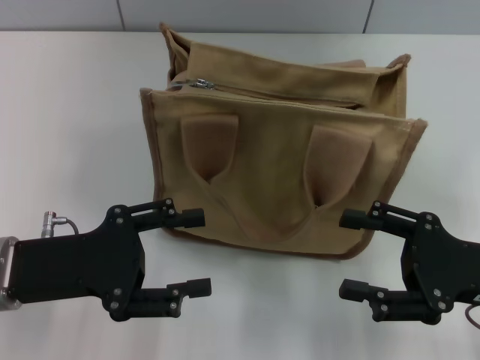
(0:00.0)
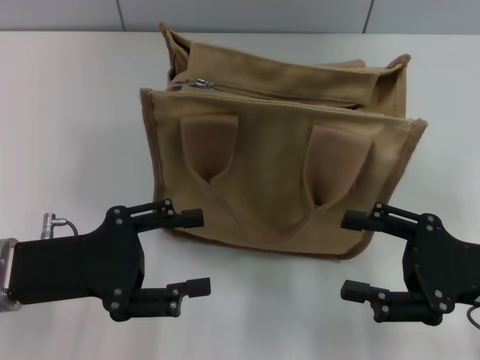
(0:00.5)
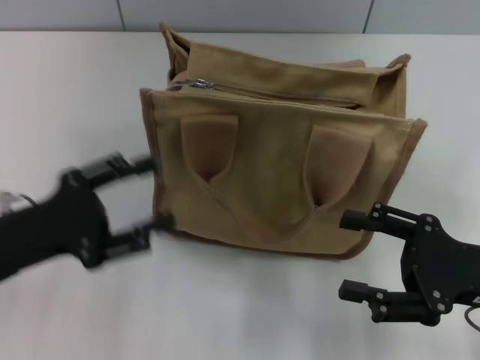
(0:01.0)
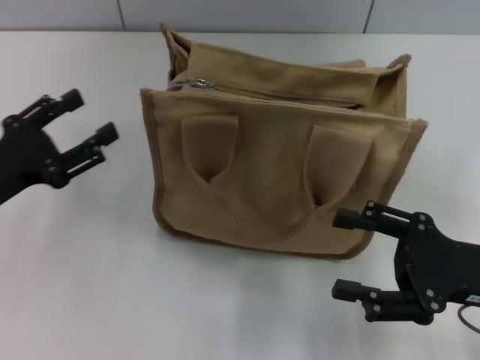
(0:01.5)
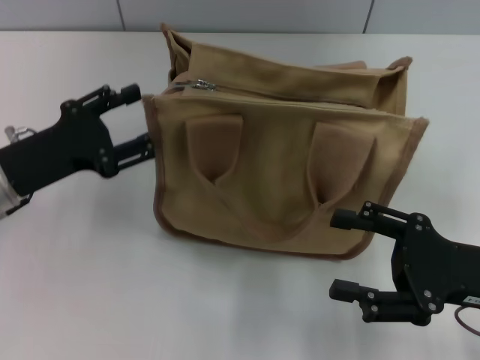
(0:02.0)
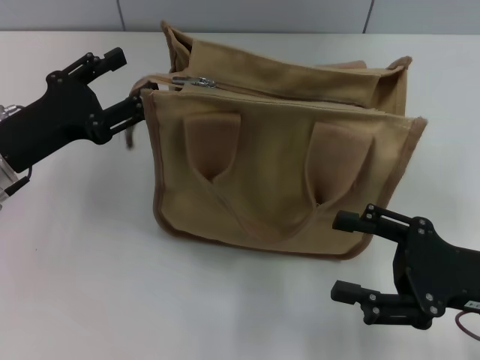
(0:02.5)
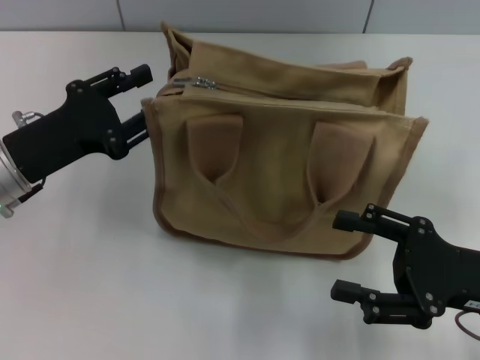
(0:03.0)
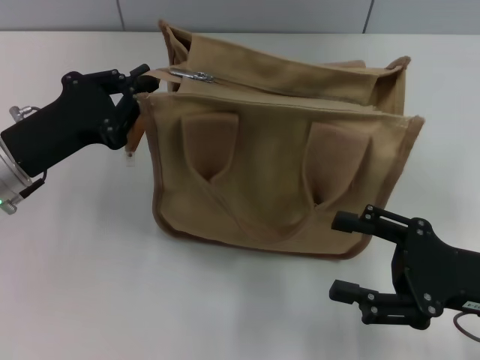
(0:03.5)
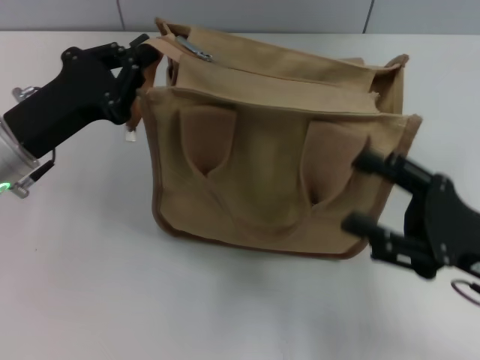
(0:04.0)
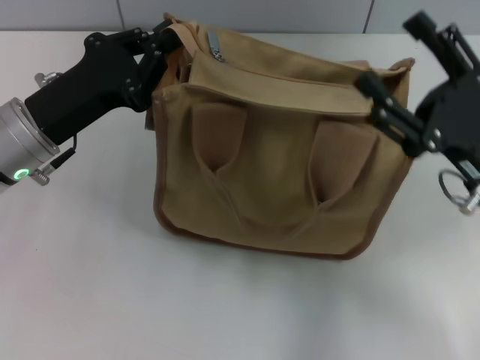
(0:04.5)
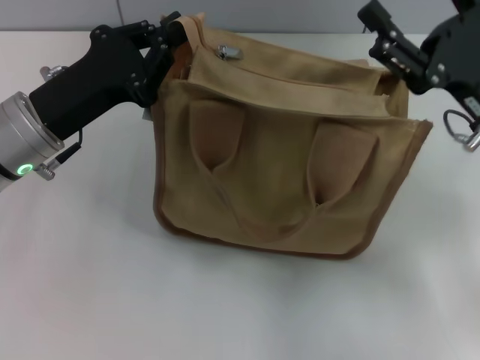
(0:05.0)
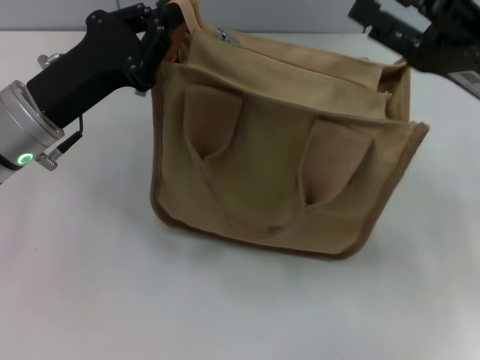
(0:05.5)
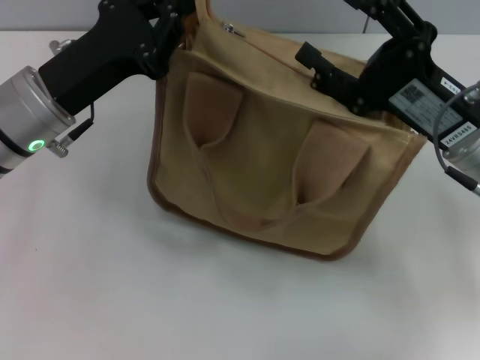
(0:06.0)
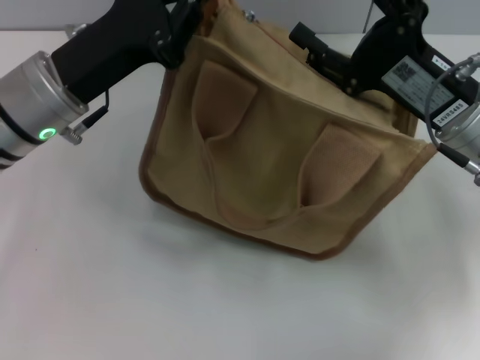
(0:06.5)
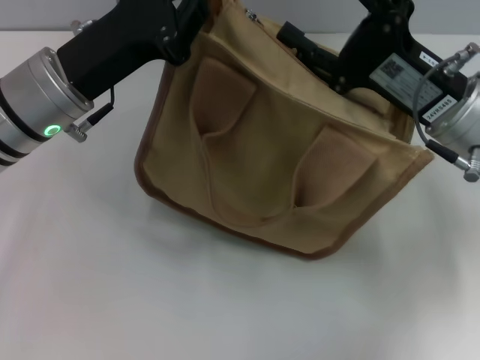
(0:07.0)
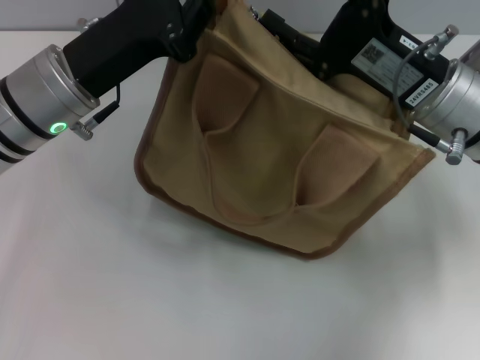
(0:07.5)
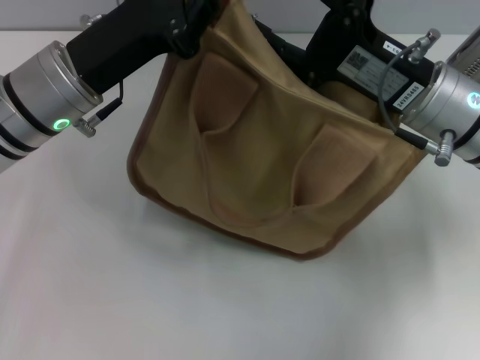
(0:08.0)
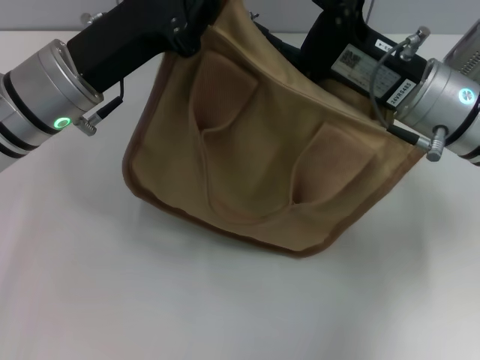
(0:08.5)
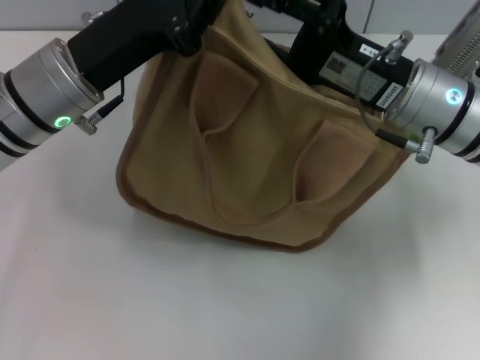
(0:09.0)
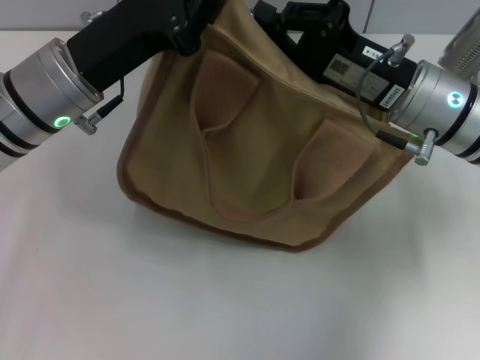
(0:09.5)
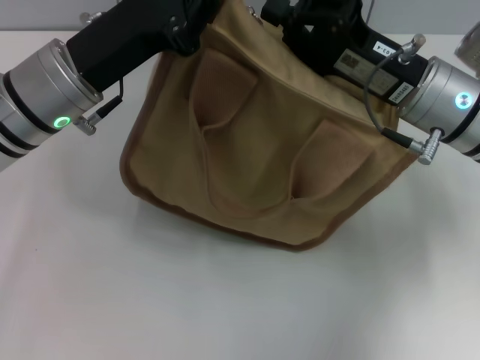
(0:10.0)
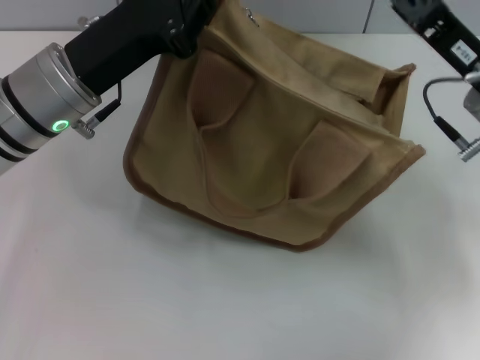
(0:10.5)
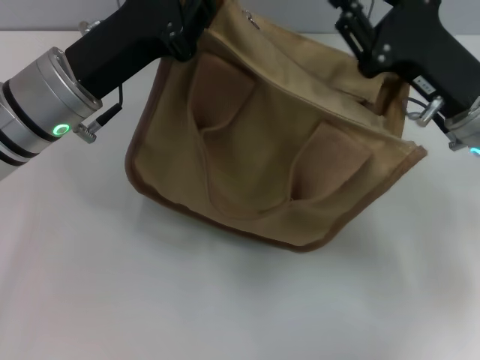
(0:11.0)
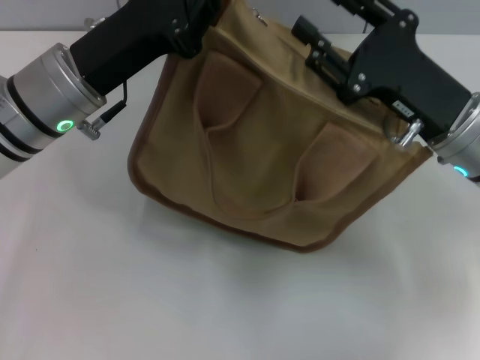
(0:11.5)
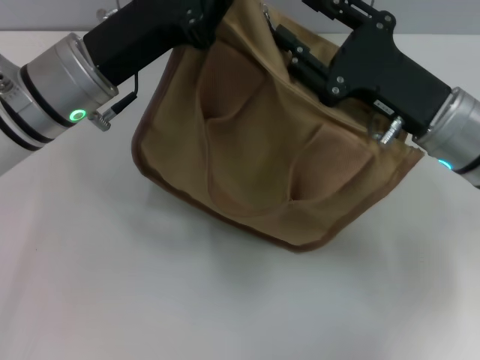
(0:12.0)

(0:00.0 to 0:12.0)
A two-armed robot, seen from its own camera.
0:00.0 - 0:02.0: The left gripper is displaced forward by about 5 cm.
0:02.0 - 0:04.0: The left gripper closes up.
0:04.0 - 0:06.0: The right gripper travels forward by about 10 cm.
0:08.0 - 0:10.0: The right gripper closes its fingers.
0:10.0 - 0:12.0: The right gripper opens up.

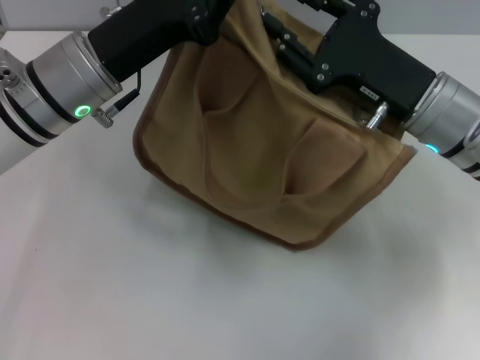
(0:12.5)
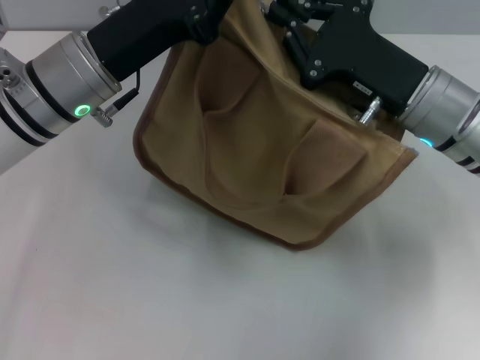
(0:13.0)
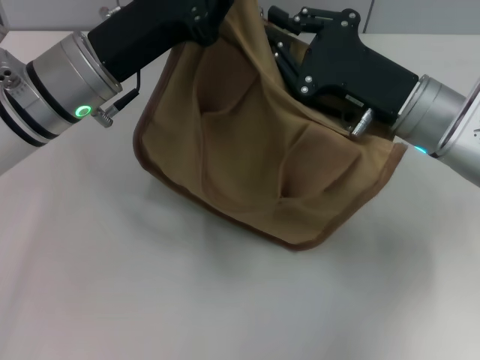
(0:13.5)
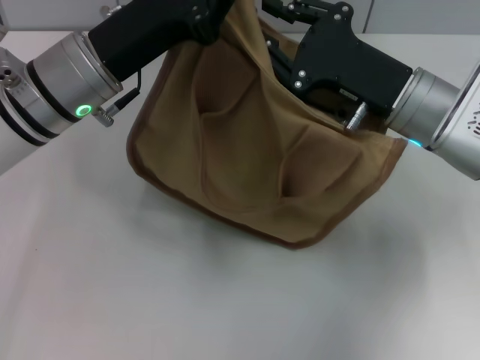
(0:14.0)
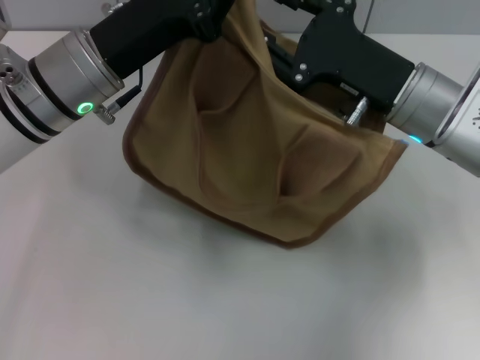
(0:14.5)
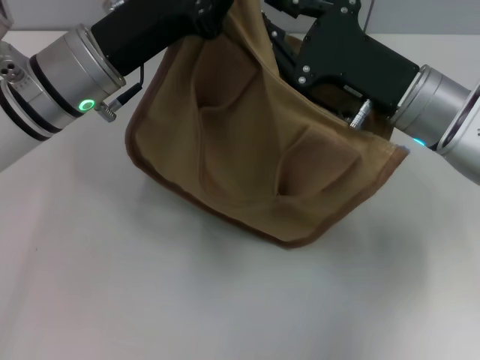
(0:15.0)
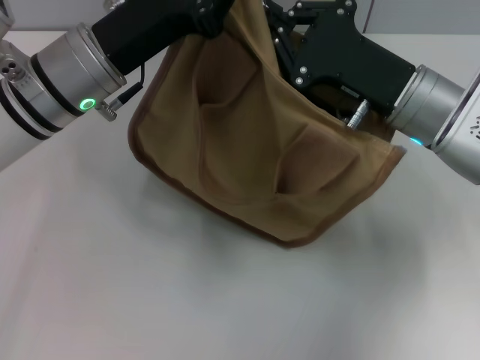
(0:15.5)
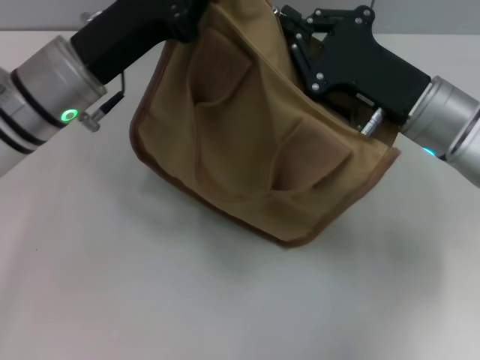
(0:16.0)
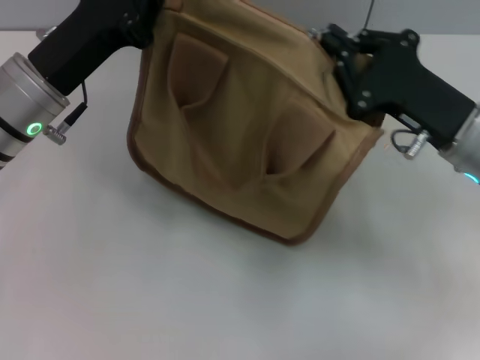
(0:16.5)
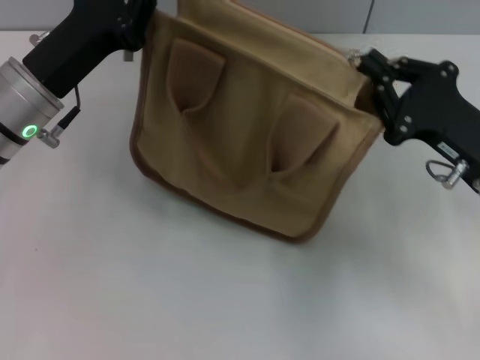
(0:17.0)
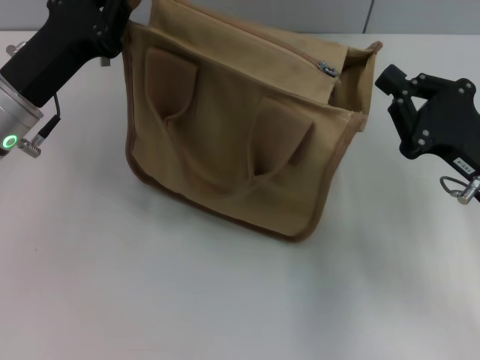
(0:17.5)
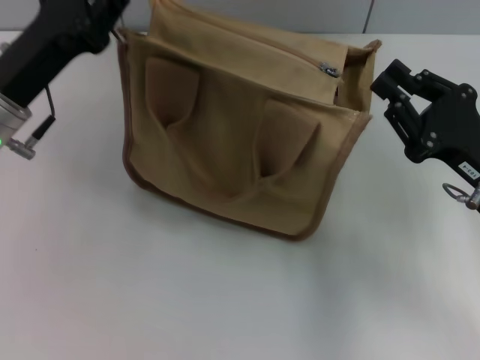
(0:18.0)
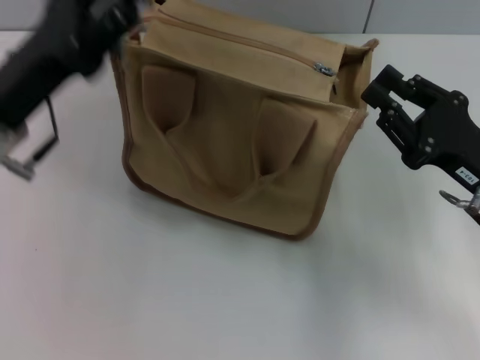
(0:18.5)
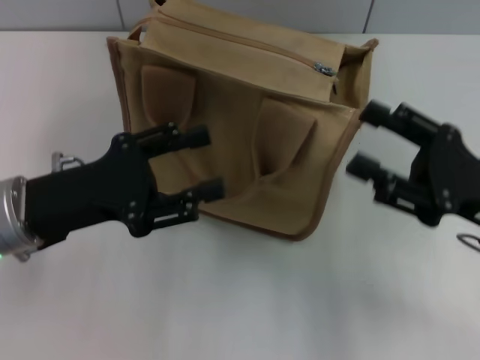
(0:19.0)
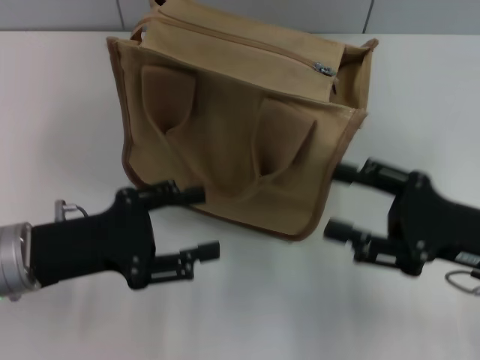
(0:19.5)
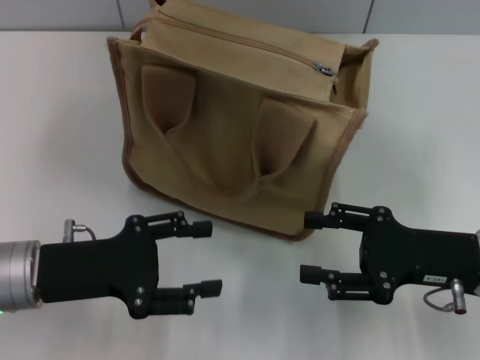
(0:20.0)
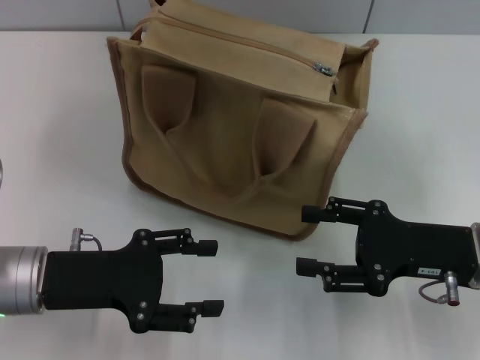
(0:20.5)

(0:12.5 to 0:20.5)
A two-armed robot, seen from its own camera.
Step, 0:12.5 - 0:17.5: Pull up the zipper with your right hand.
Step, 0:18.0 - 0:18.5: Grab the zipper with your left hand.
0:12.5 - 0:14.5: The right gripper closes, then reopens.
0:14.5 - 0:16.5: The right gripper heads to the right, covering about 5 cm, and closes up. The left gripper shifts by roughly 5 cm.
0:16.5 - 0:18.5: The left gripper opens; the right gripper is displaced backward by roughly 5 cm.
0:18.5 - 0:20.5: The right gripper opens. Meanwhile the left gripper is displaced downward and backward by roughly 10 cm.

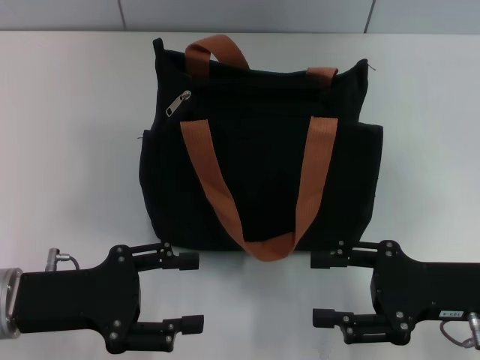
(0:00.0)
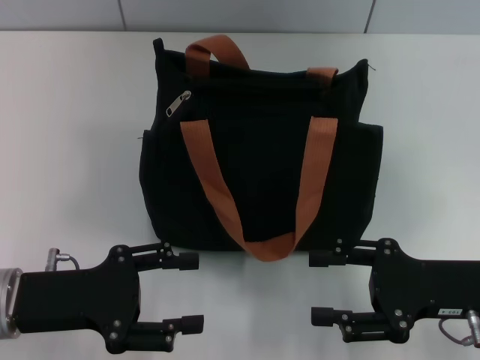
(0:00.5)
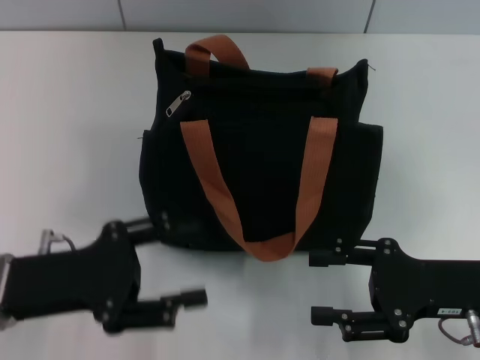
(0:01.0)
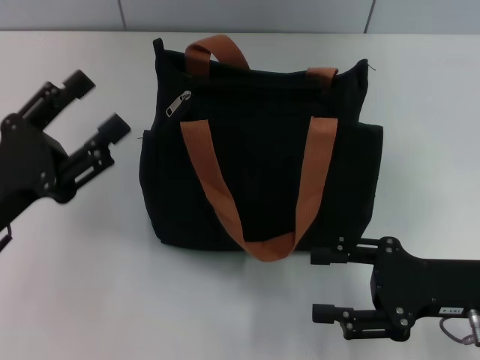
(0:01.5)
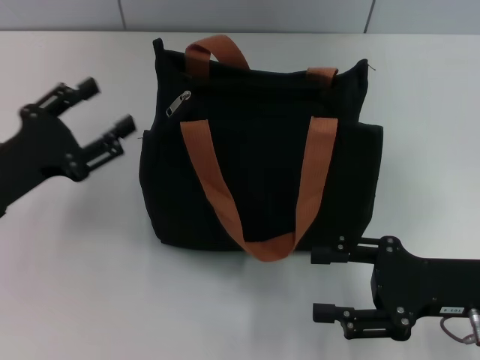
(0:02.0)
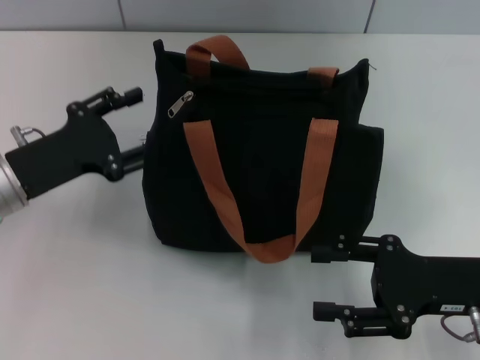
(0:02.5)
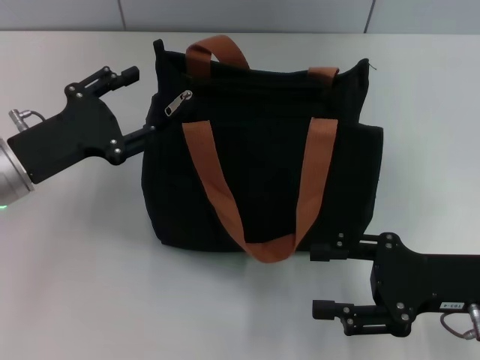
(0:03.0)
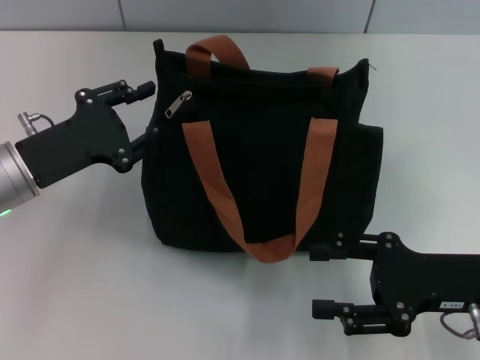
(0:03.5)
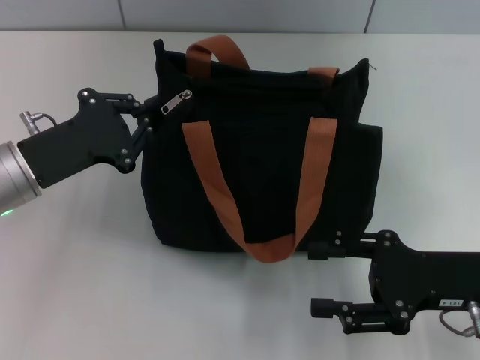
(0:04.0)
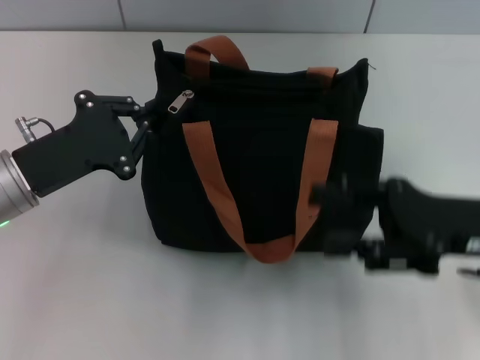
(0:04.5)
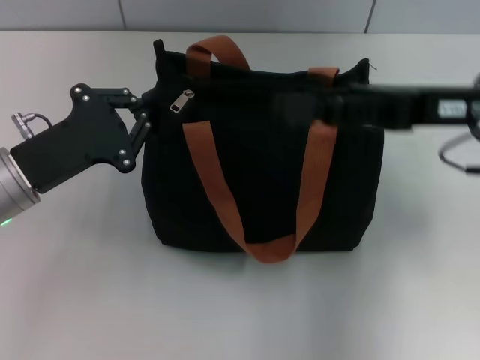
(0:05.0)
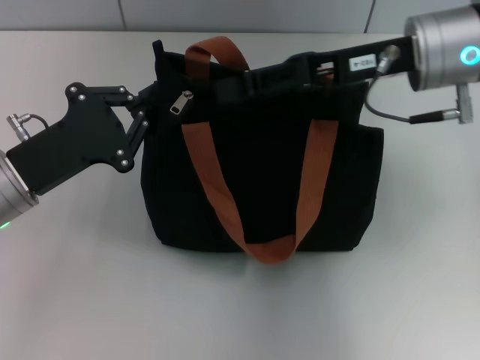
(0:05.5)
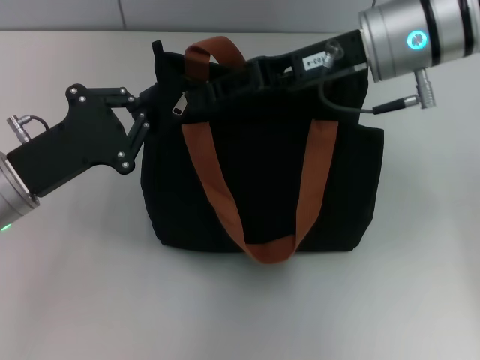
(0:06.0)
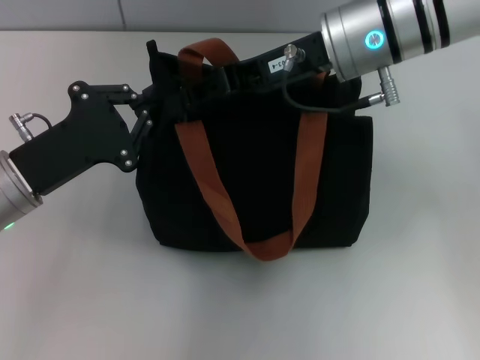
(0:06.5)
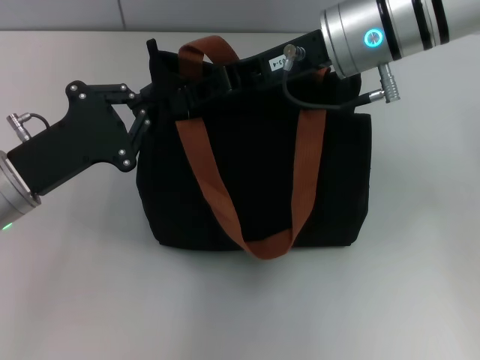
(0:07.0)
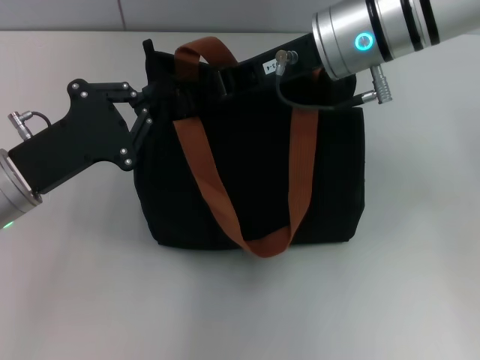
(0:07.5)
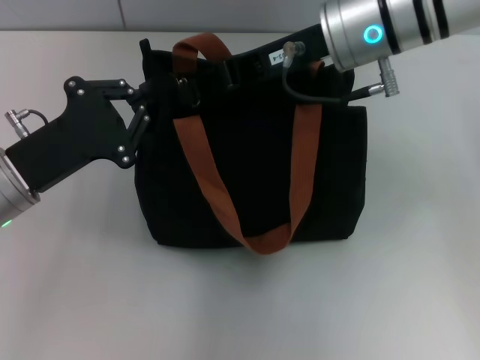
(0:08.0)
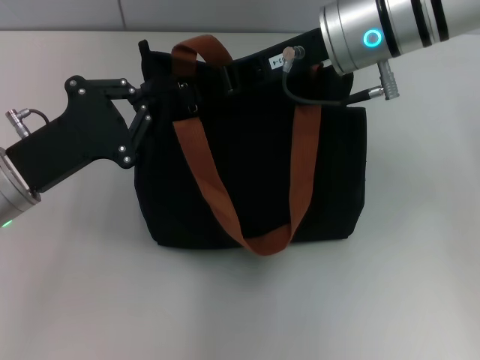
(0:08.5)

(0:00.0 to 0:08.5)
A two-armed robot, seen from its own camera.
0:00.0 - 0:02.0: The left gripper travels forward by approximately 5 cm.
0:02.0 - 0:04.0: The left gripper closes up.
0:04.0 - 0:06.5: The right gripper goes about 25 cm forward, to the left and upward, and closes up.
0:06.5 - 0:08.5: The right gripper closes up.
